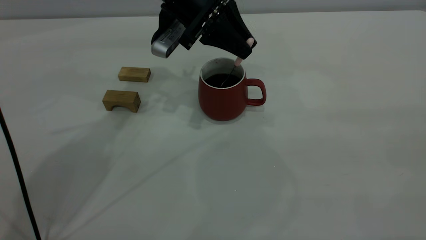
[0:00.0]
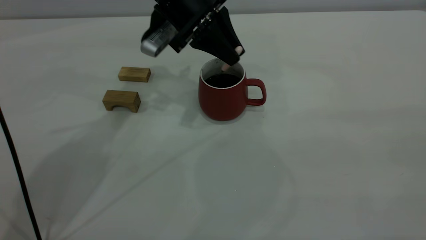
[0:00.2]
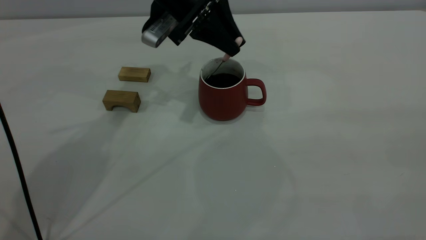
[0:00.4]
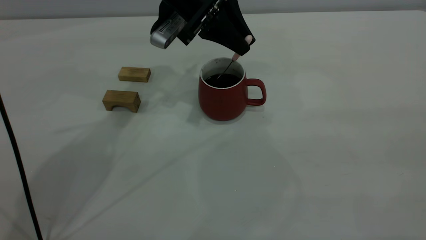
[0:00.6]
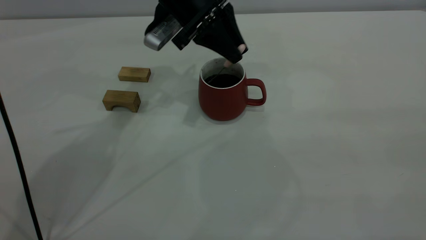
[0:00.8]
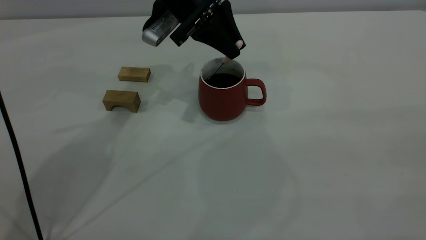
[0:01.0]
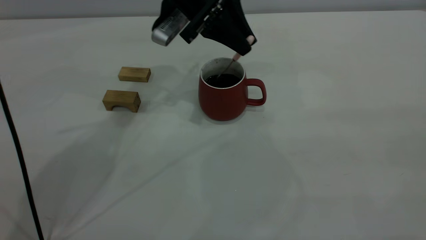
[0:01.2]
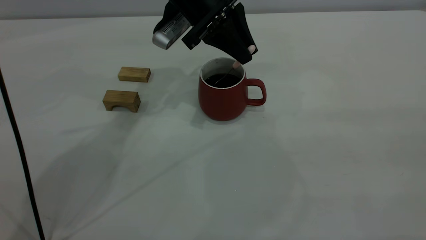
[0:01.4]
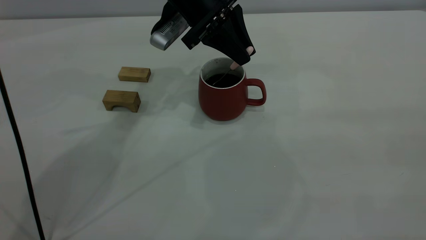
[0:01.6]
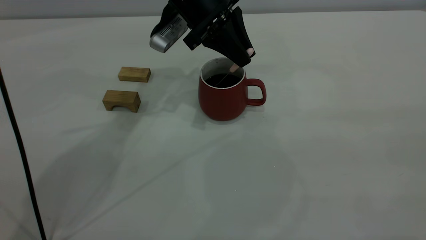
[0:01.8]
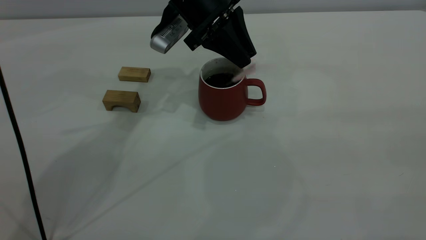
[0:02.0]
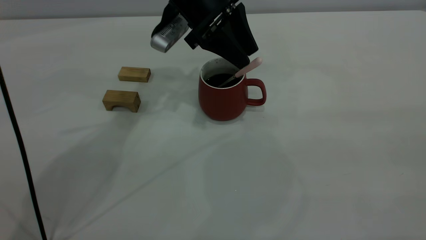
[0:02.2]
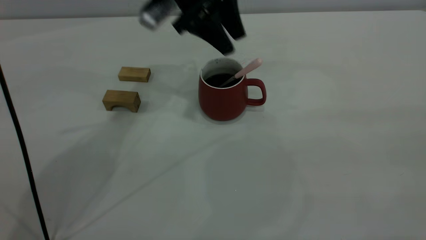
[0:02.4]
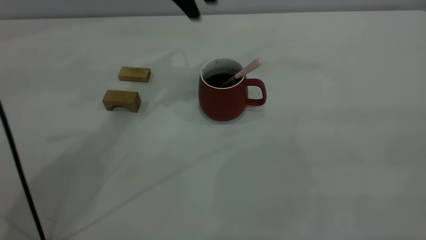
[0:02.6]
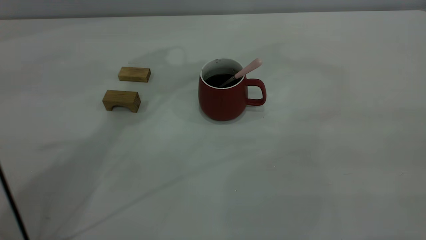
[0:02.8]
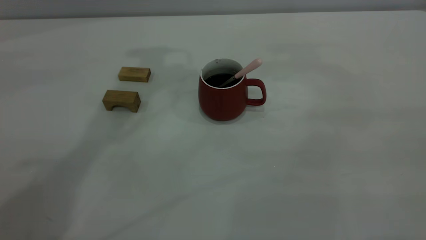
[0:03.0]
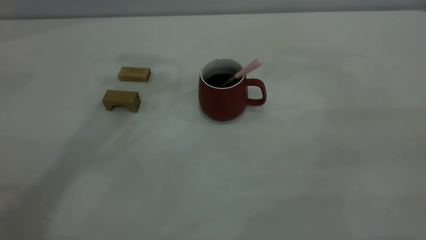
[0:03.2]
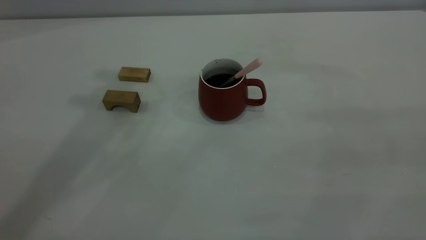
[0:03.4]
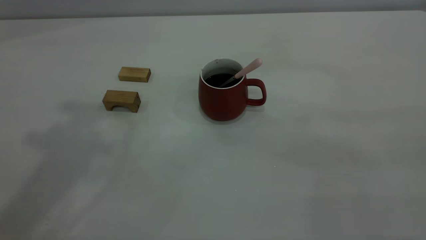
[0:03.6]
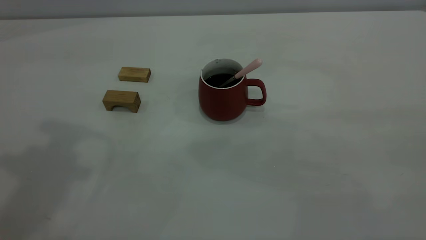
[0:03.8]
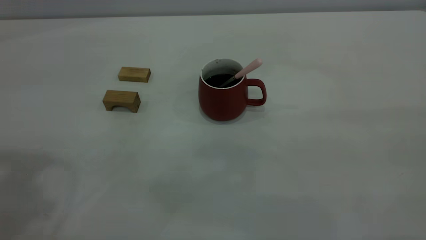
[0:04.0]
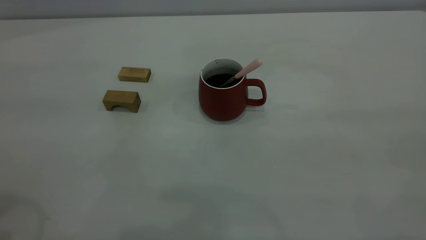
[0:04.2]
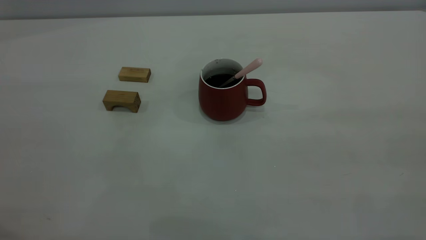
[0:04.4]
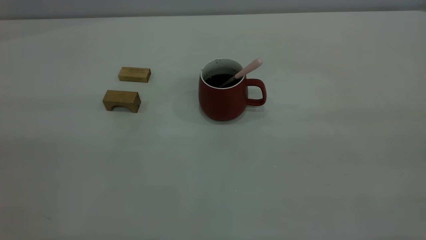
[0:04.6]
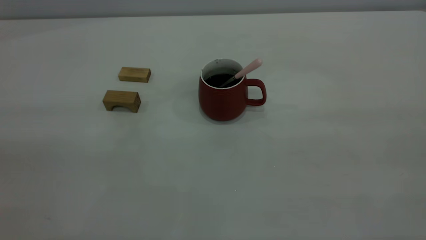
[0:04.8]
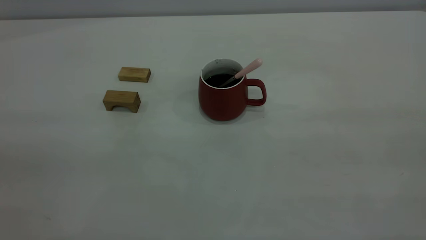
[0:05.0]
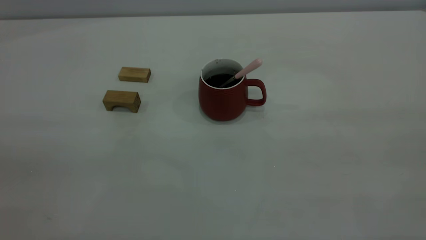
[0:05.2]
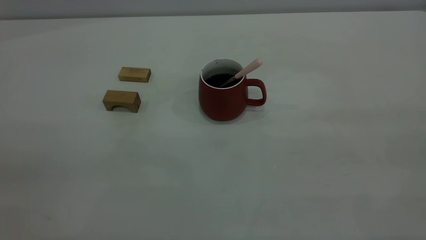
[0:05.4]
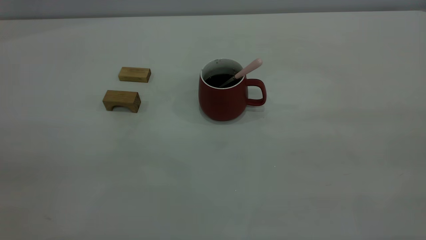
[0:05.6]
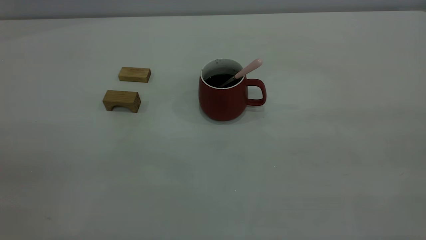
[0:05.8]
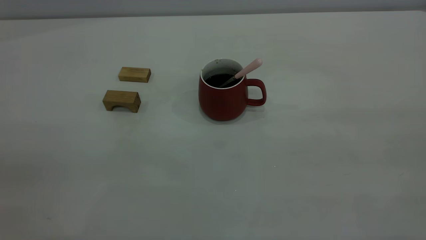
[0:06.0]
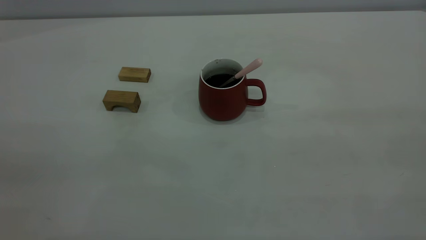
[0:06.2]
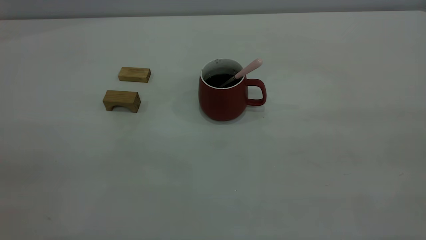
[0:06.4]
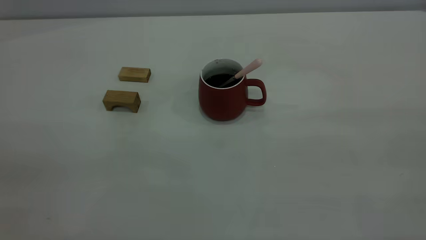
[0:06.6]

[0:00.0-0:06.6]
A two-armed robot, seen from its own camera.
Step, 0:00.0 to 0:02.2: Stir the coffee in the cup.
0:00.0 to 0:01.6: The grippers move only a little.
0:01.6 to 0:03.2: The left gripper shifts some 30 cm upward, and opens its fingers.

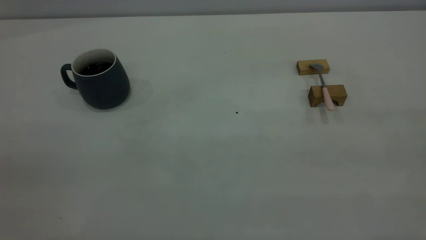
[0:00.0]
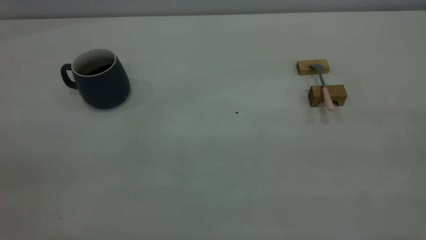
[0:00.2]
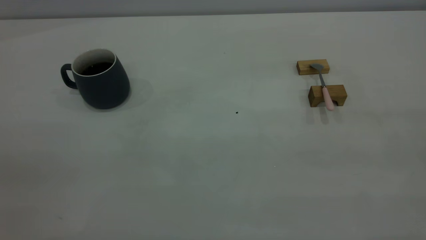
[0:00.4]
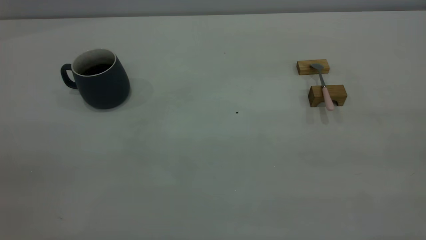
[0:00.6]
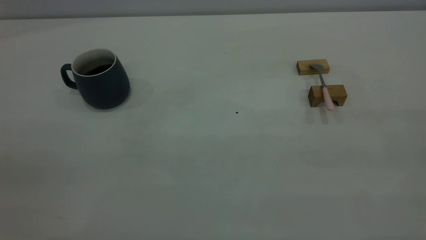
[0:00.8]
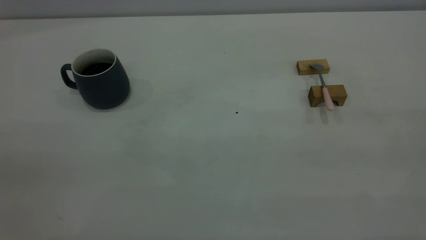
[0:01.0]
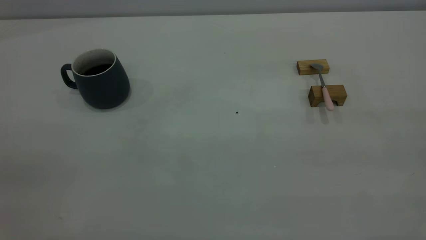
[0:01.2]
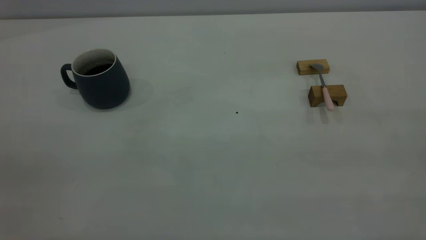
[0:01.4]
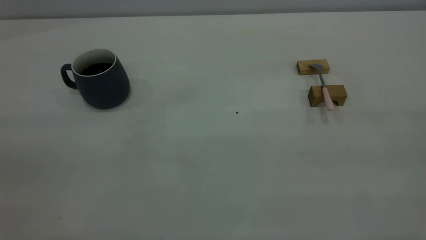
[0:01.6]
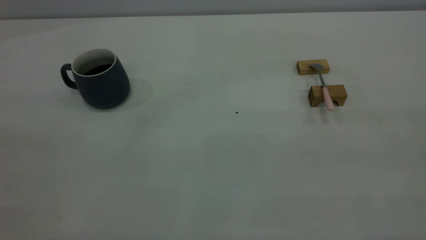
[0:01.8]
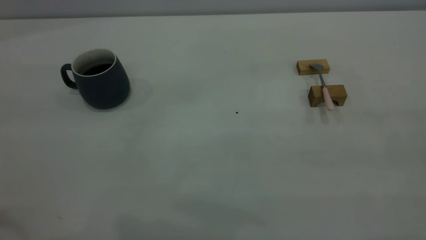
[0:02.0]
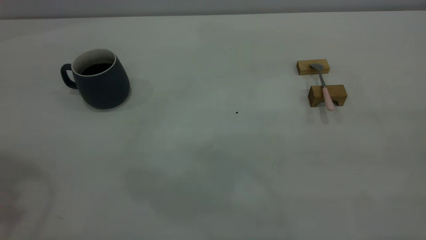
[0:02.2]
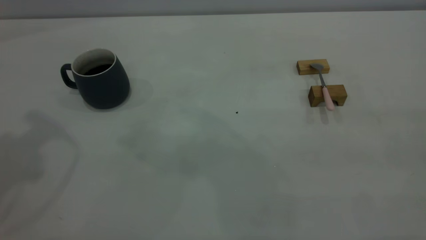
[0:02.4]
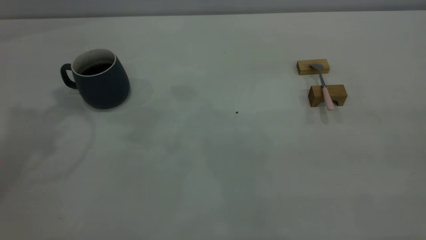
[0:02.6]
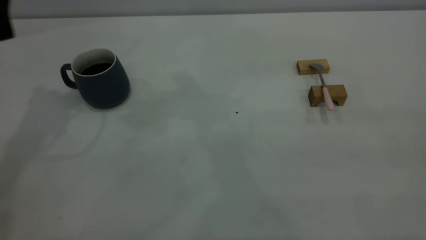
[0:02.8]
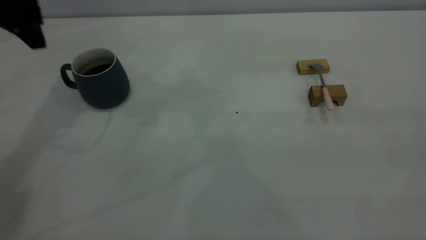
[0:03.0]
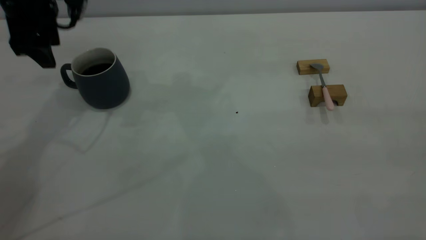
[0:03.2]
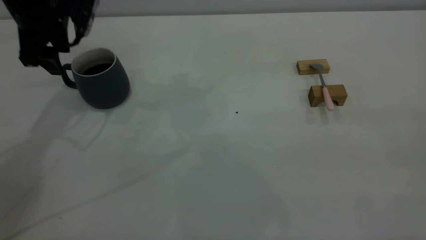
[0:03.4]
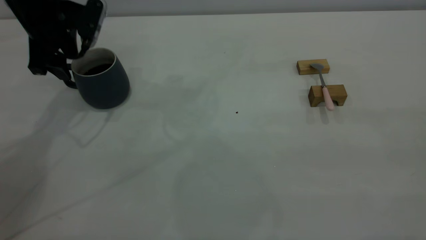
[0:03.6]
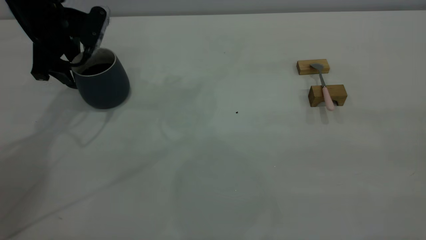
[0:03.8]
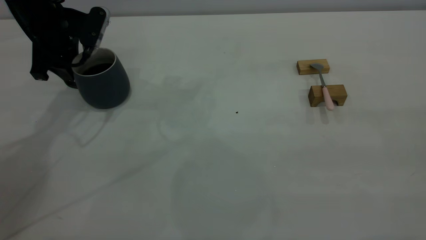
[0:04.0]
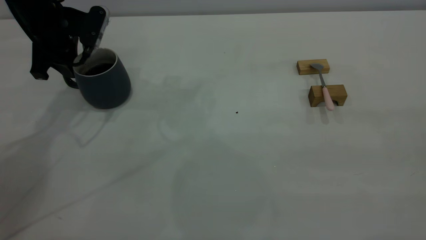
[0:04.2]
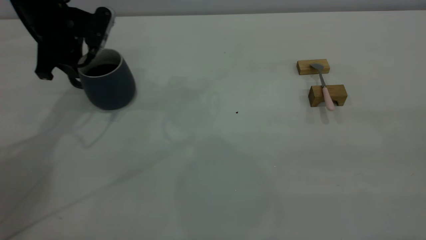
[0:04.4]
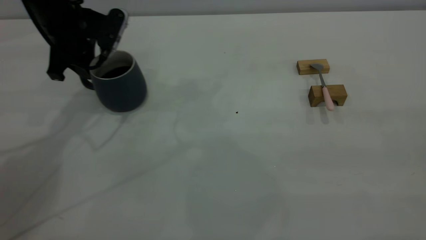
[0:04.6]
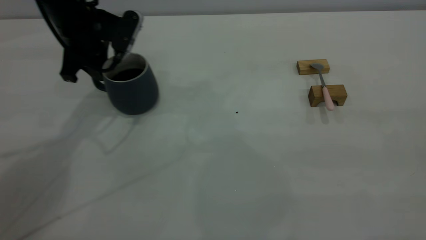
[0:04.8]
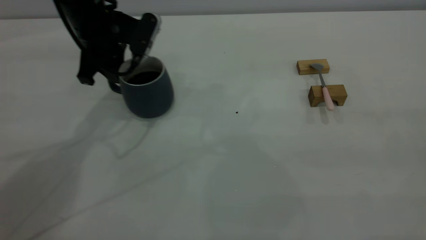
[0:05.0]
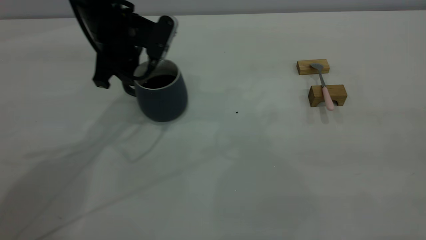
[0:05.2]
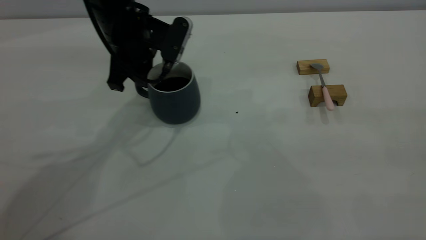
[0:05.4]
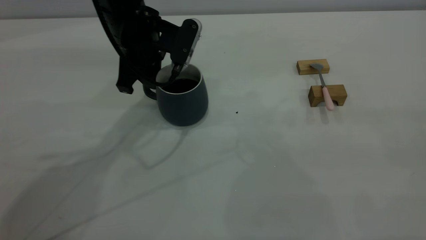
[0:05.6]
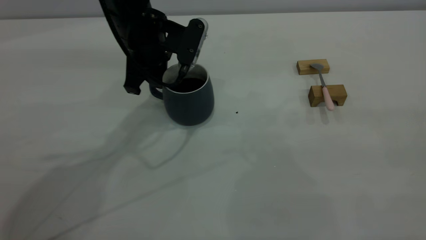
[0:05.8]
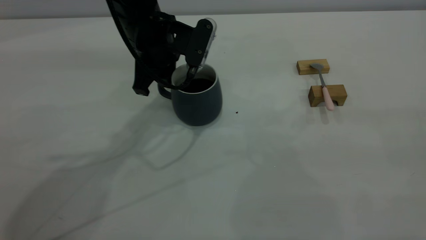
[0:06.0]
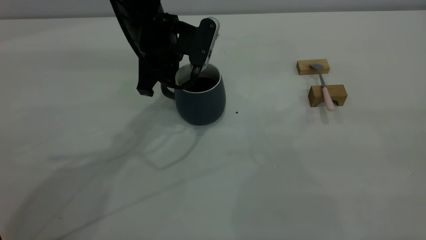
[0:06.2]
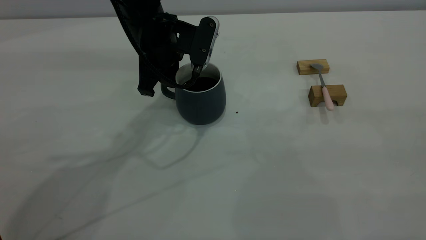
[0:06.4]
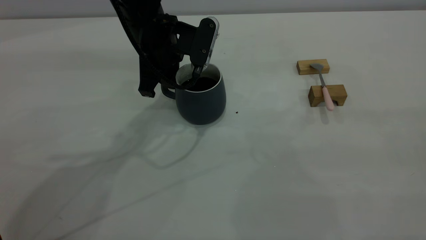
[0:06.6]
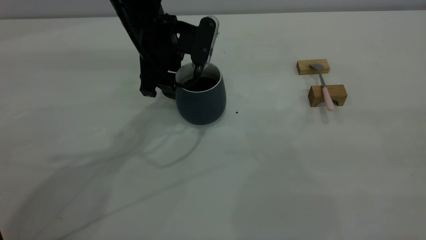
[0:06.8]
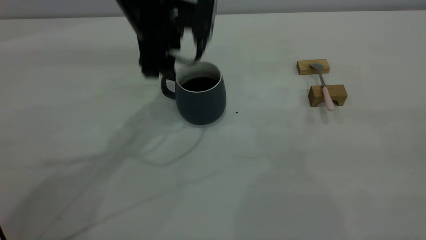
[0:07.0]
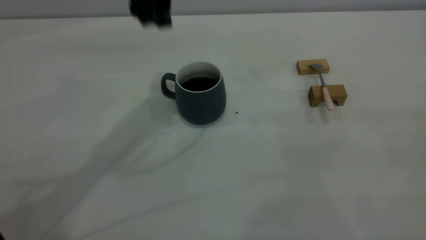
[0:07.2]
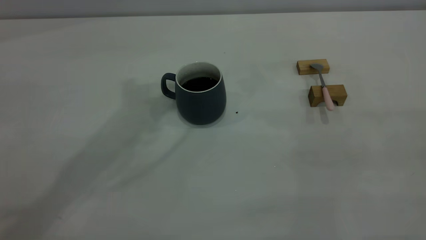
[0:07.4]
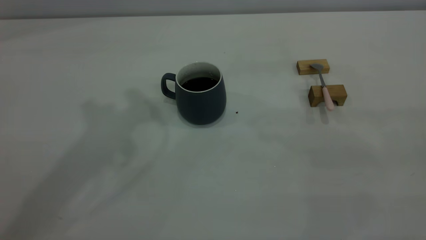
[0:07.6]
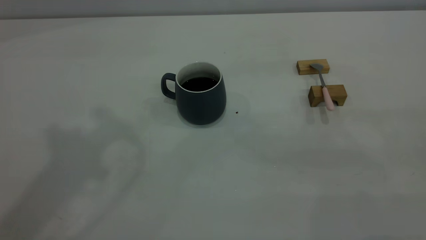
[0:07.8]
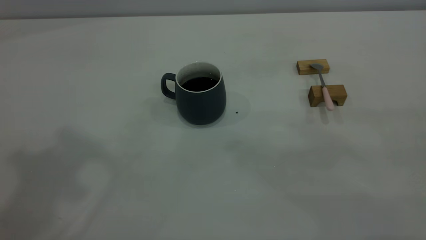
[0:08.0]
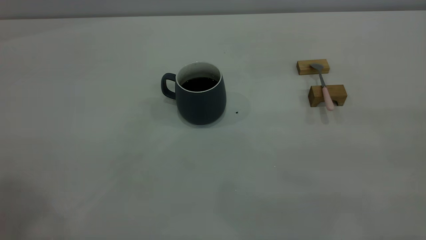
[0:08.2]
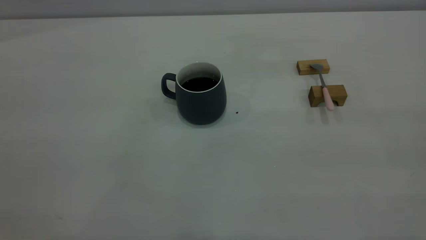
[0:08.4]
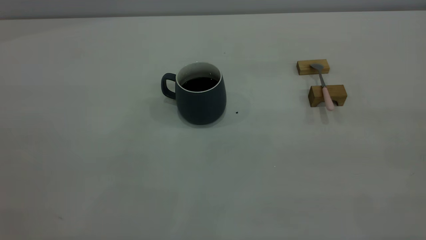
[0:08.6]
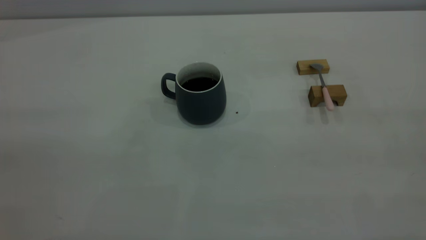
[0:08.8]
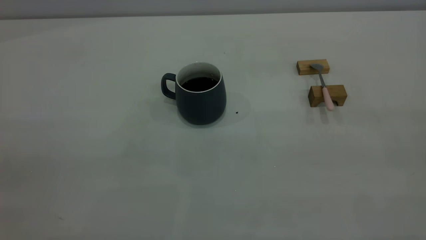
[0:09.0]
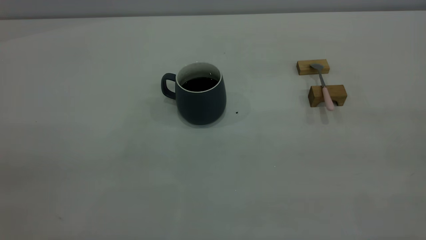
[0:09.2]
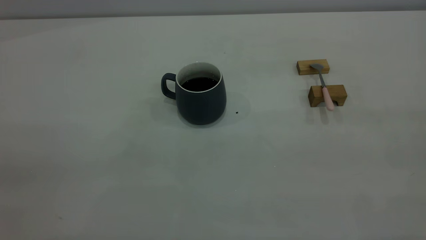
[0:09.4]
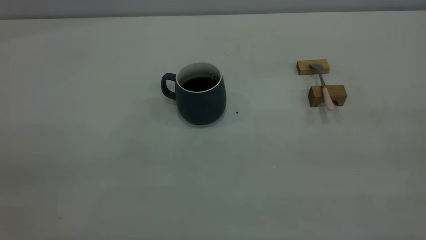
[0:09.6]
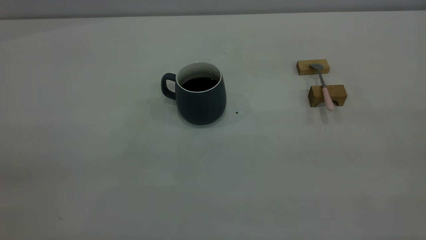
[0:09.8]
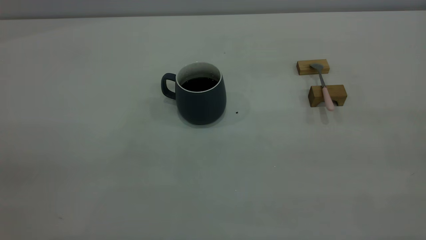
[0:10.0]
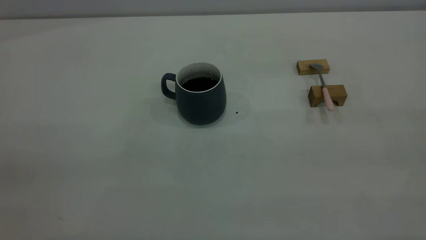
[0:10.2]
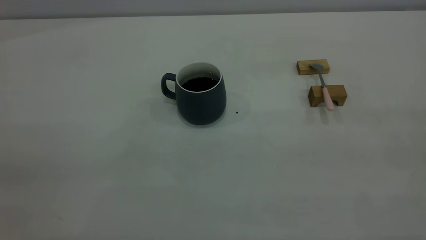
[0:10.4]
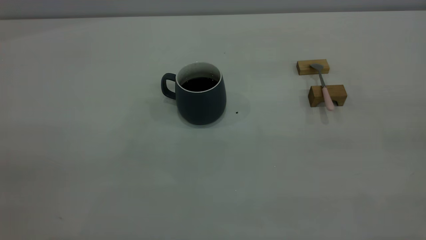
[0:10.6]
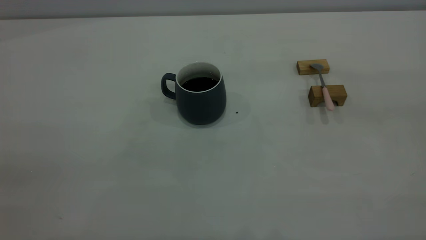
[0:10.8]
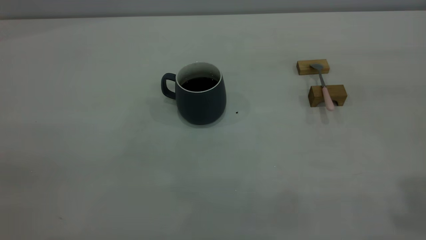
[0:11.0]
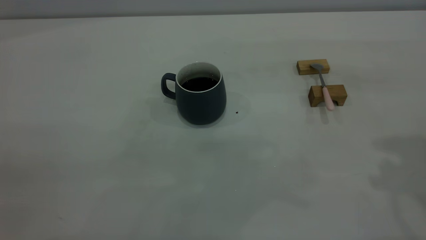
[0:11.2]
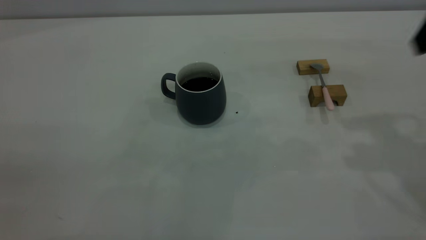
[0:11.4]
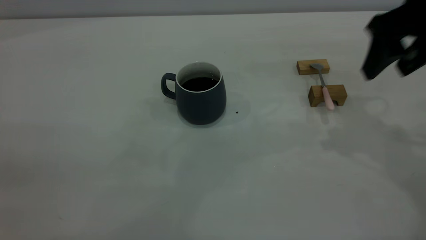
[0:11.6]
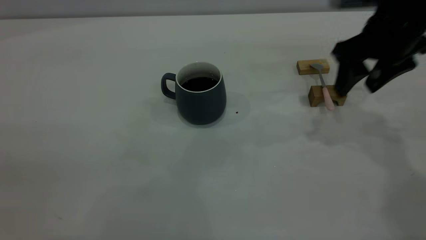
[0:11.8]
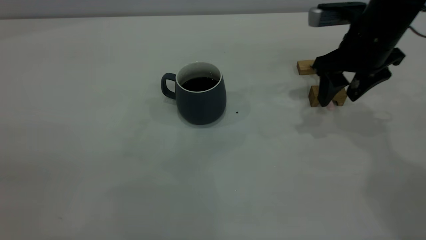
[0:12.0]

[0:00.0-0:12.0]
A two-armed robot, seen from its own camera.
Step, 0:00.0 to 0:07.0: Move the cup with coffee to the center of view.
0:01.6 to 0:03.0: The left gripper moves forward, about 40 cm.
0:03.0 to 0:04.4: The left gripper goes approximately 10 cm downward, and closes its fingers.
0:04.4 to 0:06.0: The left gripper moves to the right, about 15 cm.
0:06.0 to 0:07.6: The left gripper is displaced upward by roughly 30 cm, and opens its fingers.
0:10.4 to 0:12.0: The right gripper is displaced forward and downward by about 40 cm, and opens up.
